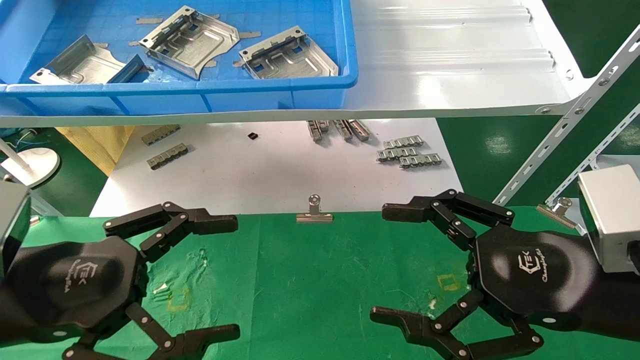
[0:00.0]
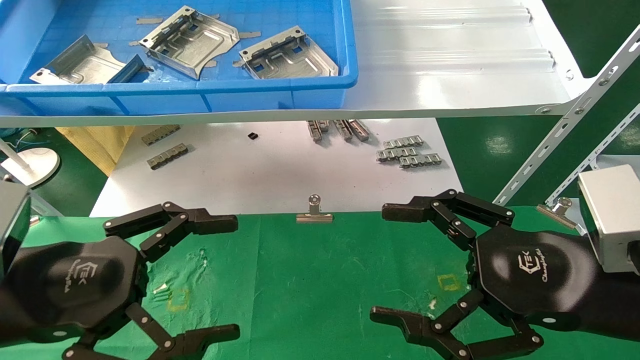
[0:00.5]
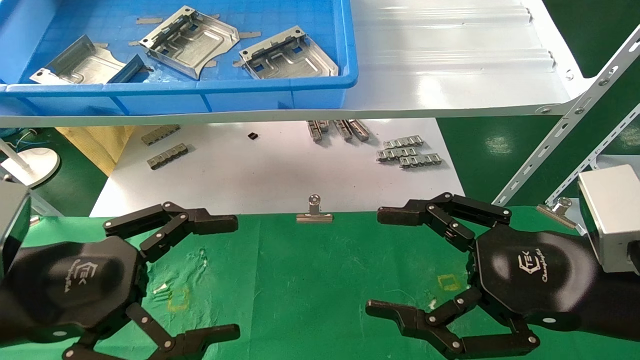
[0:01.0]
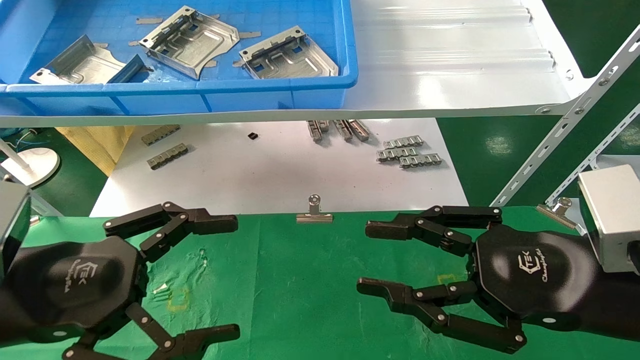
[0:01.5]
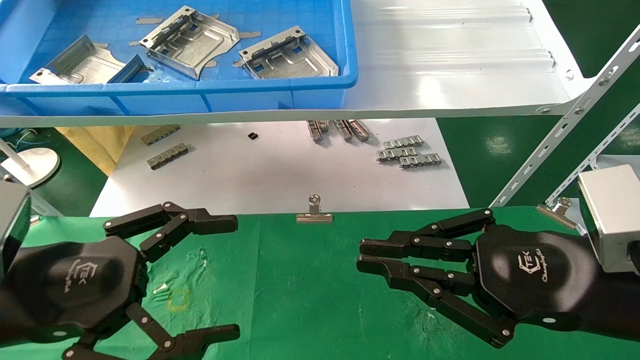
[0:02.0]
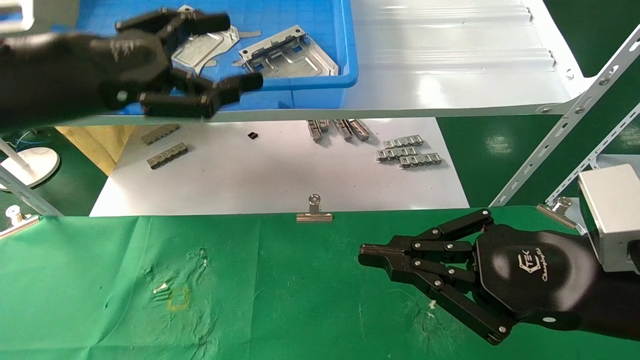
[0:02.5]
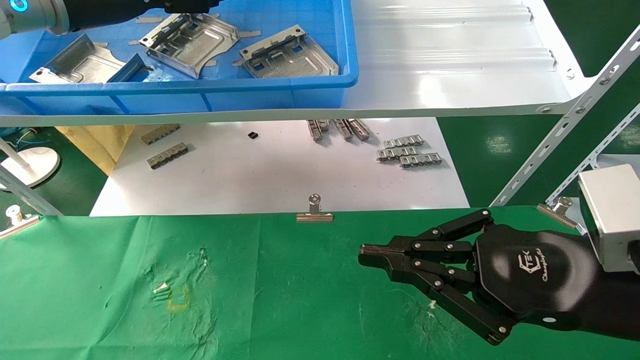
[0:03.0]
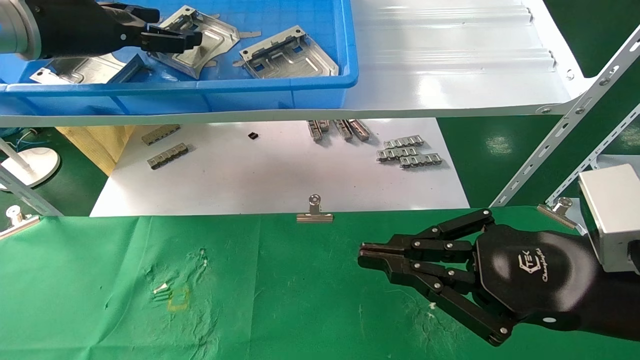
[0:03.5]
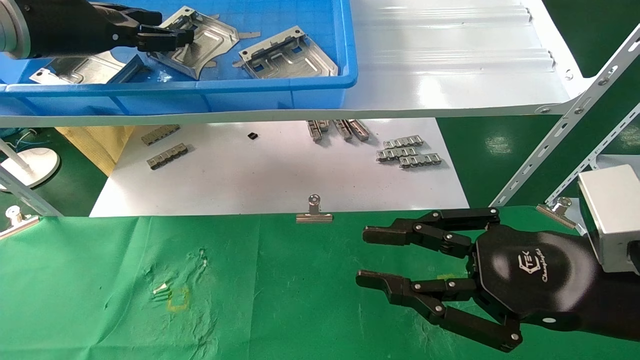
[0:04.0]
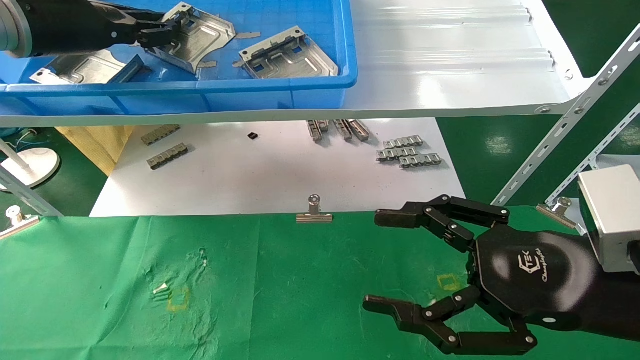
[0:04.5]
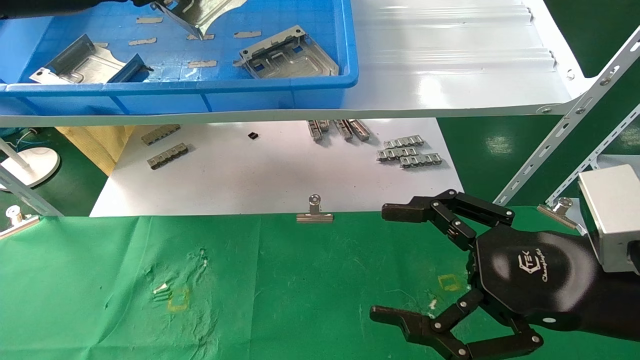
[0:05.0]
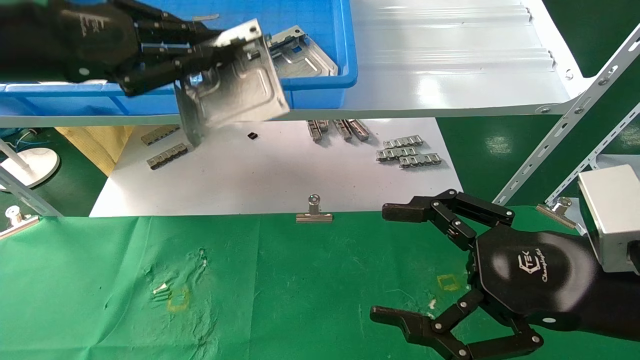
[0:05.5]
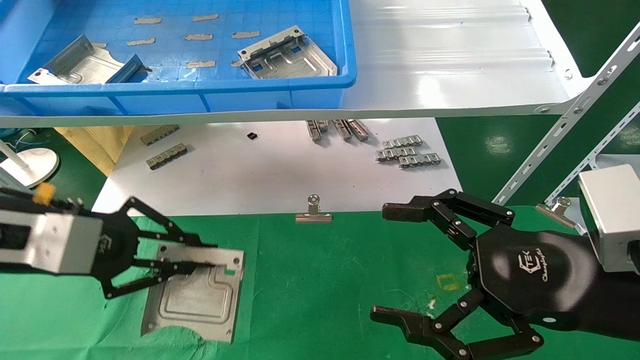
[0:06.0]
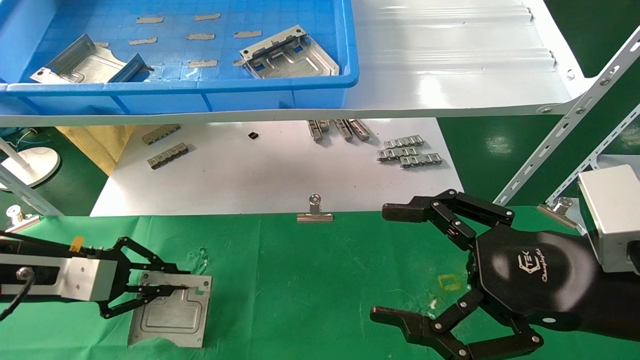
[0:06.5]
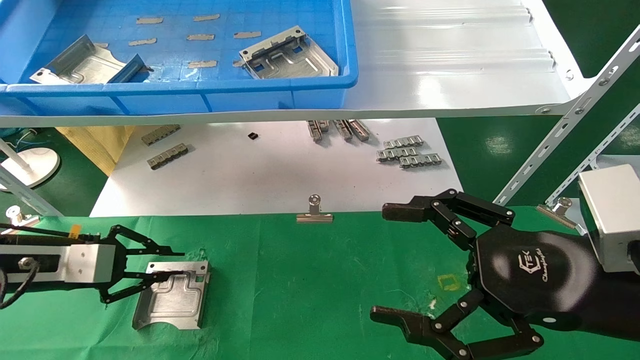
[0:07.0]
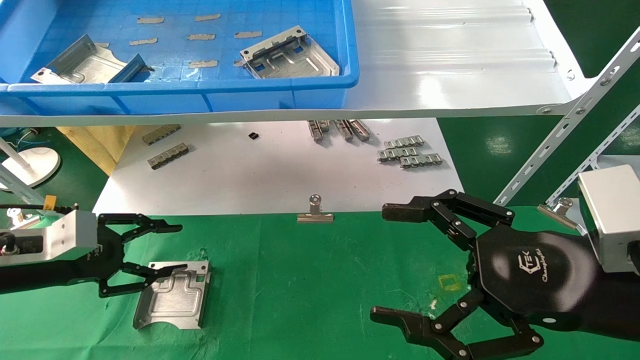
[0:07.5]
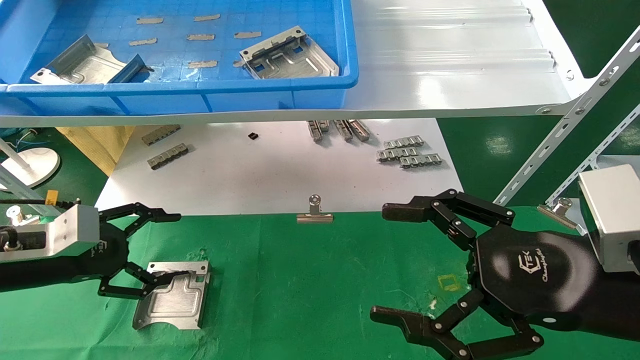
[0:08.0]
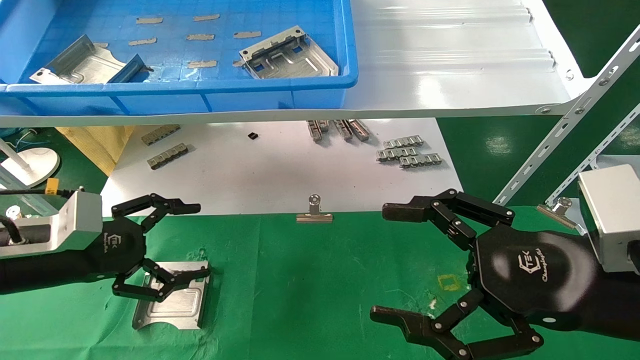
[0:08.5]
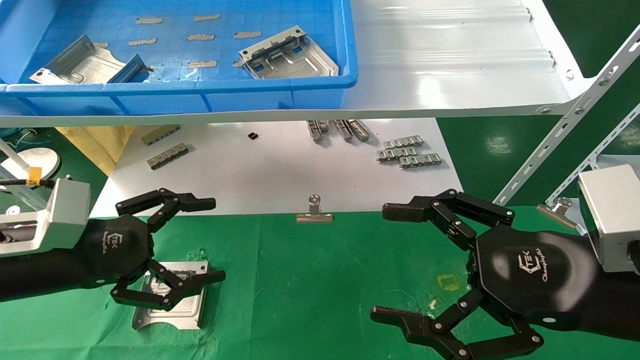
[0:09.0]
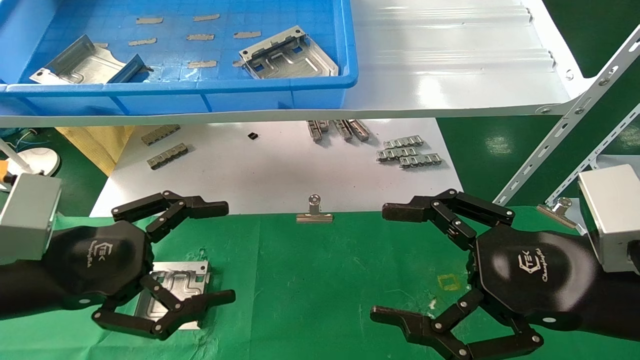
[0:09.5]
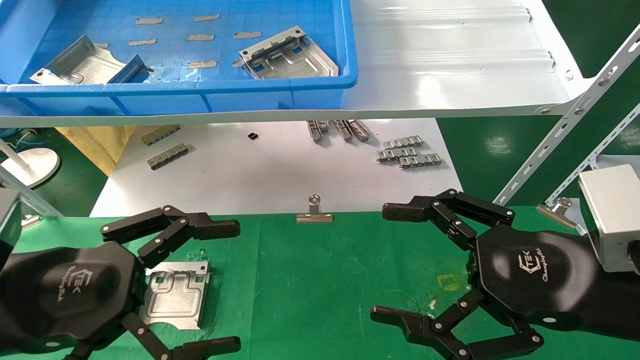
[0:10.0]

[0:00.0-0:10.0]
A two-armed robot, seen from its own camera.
Task of the whole recording: use the mechanical arm to pick up the parts and place them on the table.
Step, 0:02.5 to 0:04.5: Pick up the hard drive bracket from the feeding area.
Step, 0:05.0 to 0:07.0: Place the hard drive bracket into the box.
0:00.0 to 0:02.0: The right gripper closes.
0:02.0 to 0:04.0: The left gripper heads forward and upward, covering some 30 cm.
0:04.0 to 0:06.0: The right gripper opens its fingers. The left gripper goes approximately 20 cm downward and backward, and closes its fingers.
0:06.0 to 0:08.0: The left gripper heads downward, covering about 10 cm, and opens.
0:08.0 to 0:10.0: The left gripper is displaced backward and to the right by some 15 cm.
